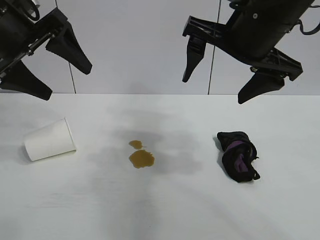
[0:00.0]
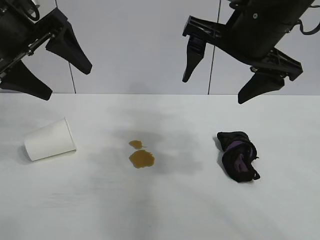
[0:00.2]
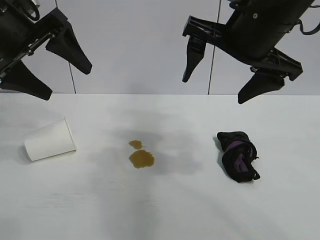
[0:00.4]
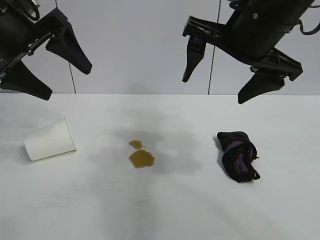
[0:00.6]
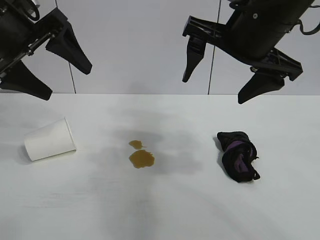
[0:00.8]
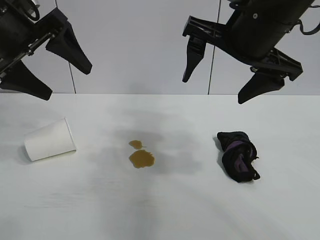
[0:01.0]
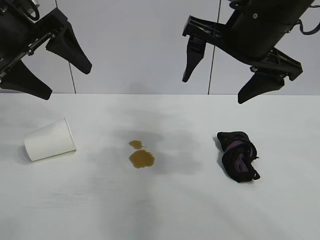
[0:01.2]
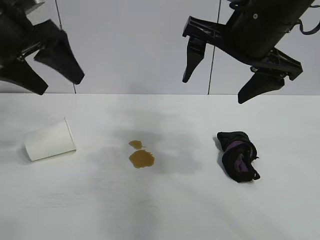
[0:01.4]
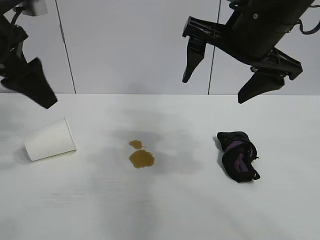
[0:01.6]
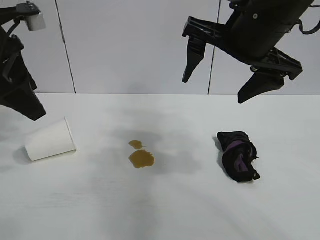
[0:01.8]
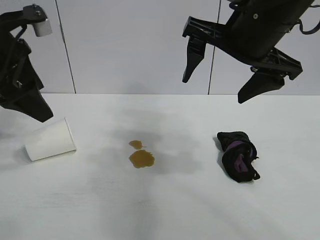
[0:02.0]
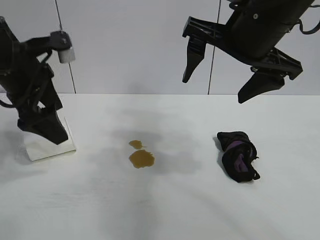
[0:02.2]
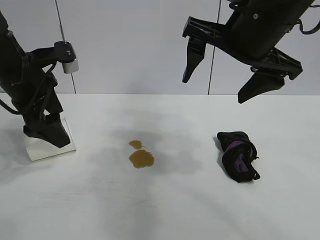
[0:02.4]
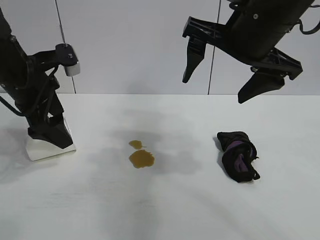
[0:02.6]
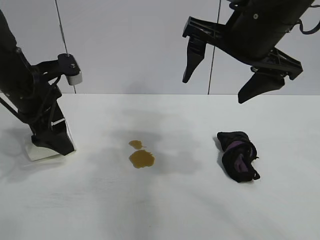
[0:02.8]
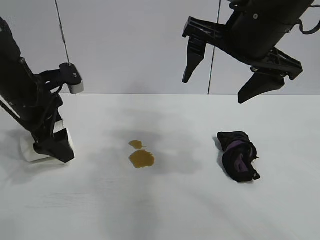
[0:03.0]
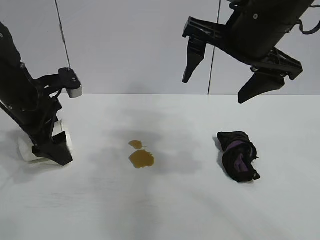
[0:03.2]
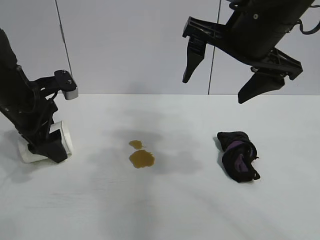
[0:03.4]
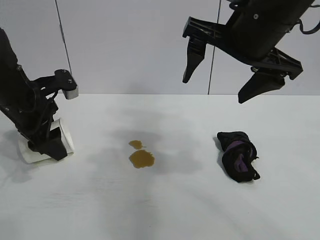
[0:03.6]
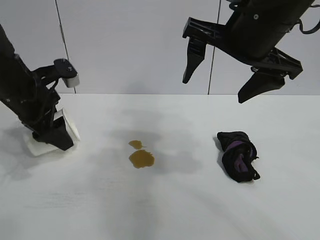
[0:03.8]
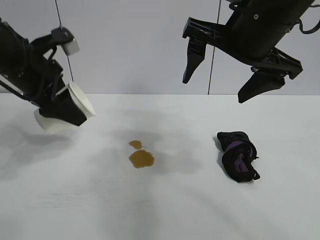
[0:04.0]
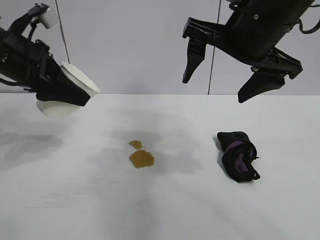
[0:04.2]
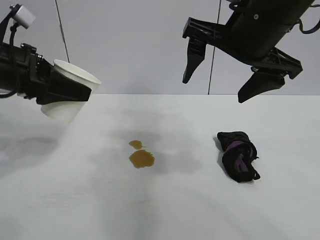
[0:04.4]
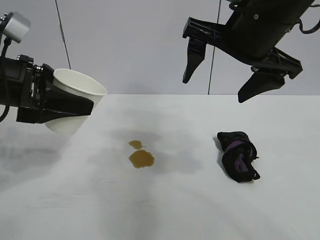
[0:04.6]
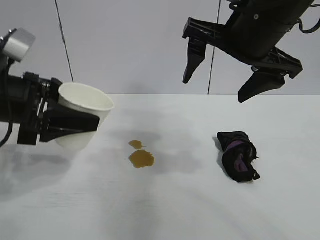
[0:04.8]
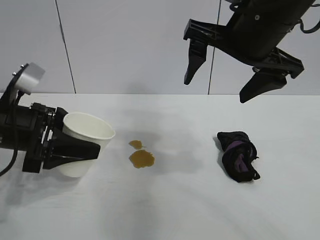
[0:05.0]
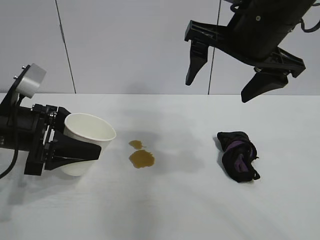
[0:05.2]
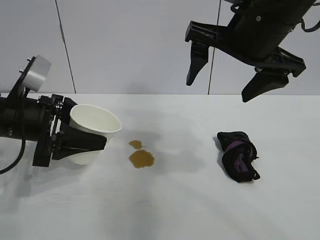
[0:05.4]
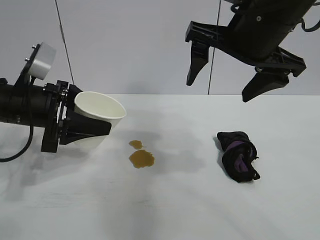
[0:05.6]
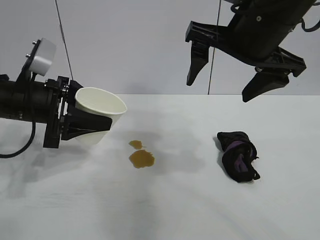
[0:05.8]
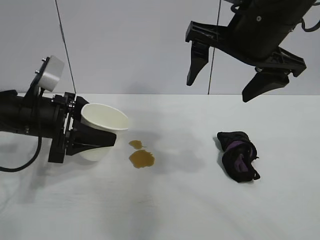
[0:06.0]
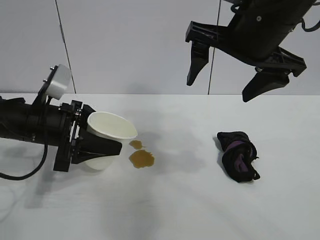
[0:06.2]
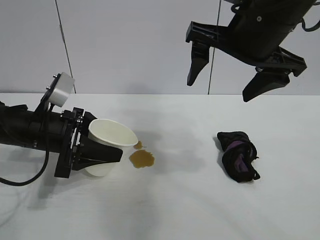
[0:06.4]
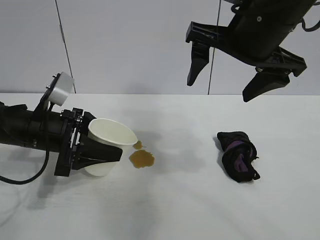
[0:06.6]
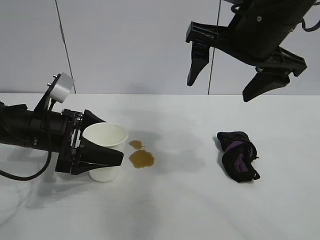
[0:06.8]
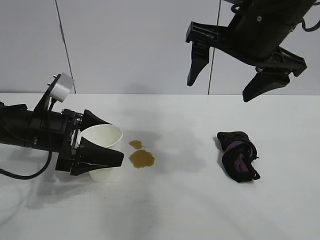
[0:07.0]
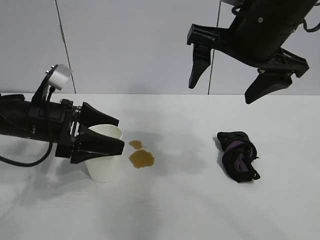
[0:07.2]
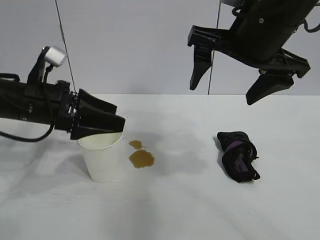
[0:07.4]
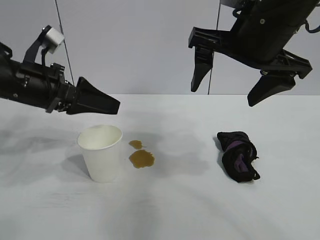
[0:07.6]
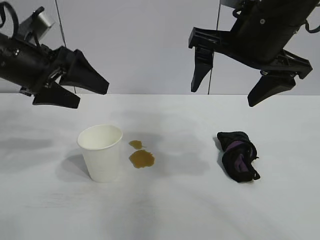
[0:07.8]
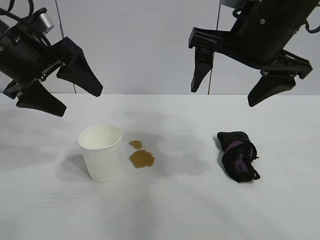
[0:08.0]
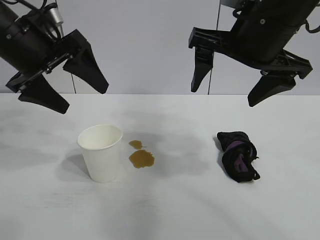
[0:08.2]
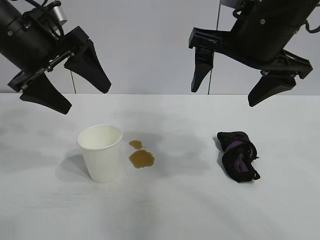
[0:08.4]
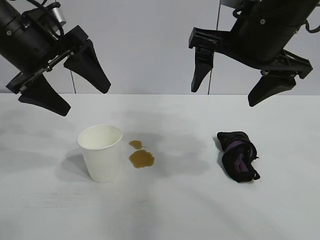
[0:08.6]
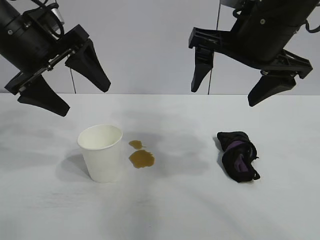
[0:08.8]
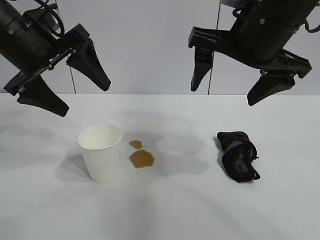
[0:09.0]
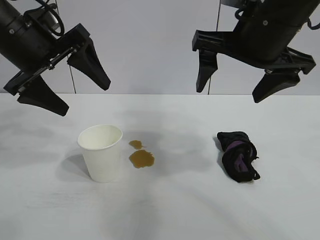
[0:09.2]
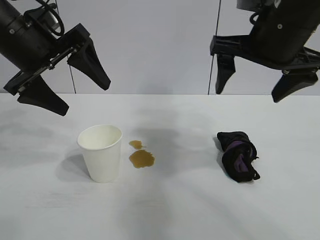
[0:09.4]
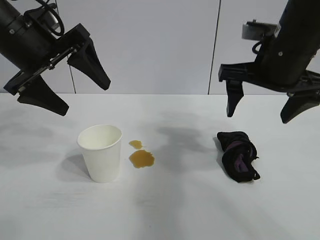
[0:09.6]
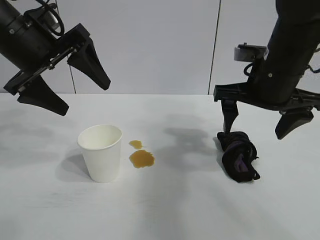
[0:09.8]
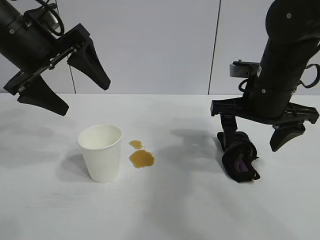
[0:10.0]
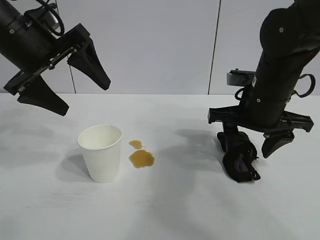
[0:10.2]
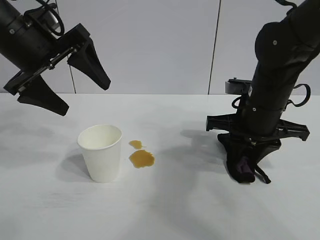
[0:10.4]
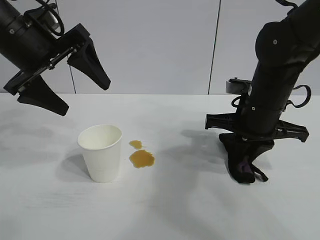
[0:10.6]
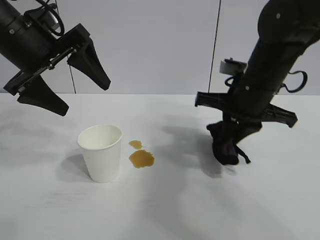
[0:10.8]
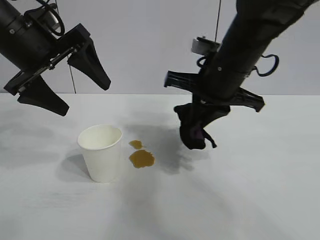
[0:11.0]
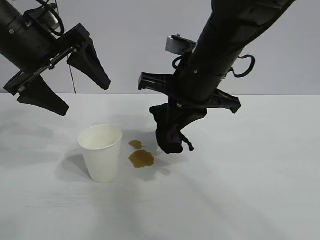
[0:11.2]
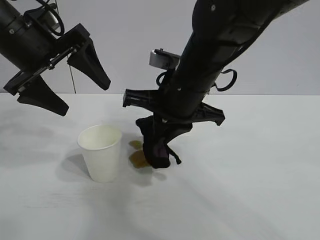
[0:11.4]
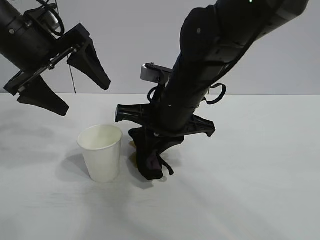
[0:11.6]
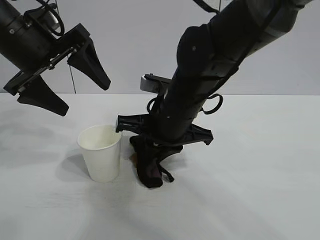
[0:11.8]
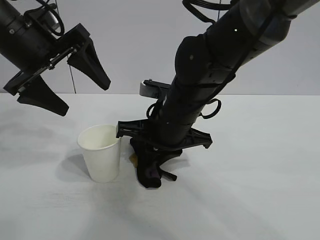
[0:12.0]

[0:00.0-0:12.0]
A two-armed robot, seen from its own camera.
Task of the whole recording: the left gripper pick up the fallen cup and place it upright, the right gripper grasp the black rag and wipe the stain on the table, the right gripper put the black rag back in its original position.
Step, 0:01.2 to 0:03.4: Grasp the paper cup with left gripper.
Step, 0:03.8 to 0:06.8: Stand the paper cup upright with left gripper.
Step, 0:07.0 to 0:10.4: Grasp the rag with right gripper.

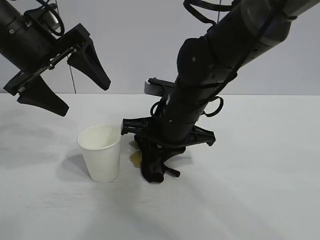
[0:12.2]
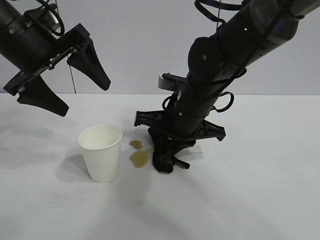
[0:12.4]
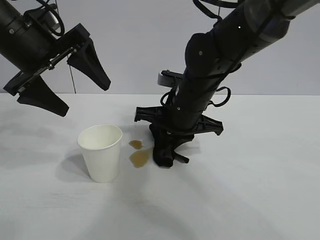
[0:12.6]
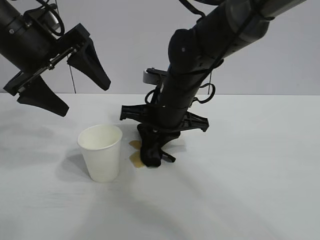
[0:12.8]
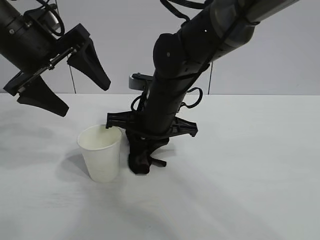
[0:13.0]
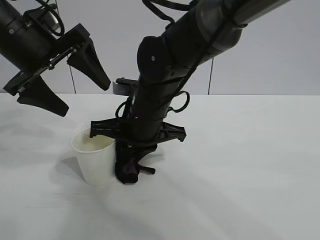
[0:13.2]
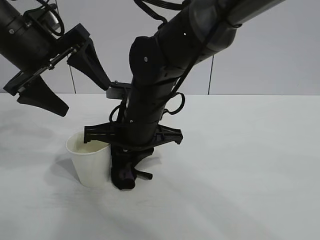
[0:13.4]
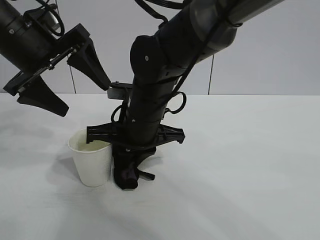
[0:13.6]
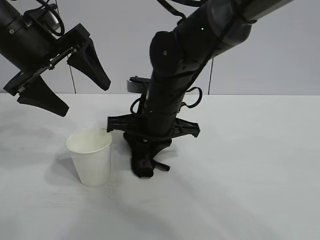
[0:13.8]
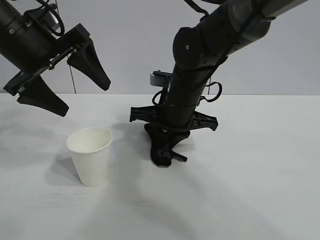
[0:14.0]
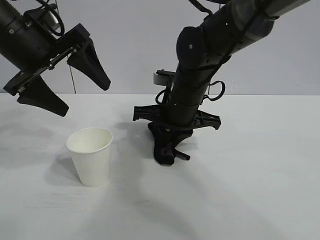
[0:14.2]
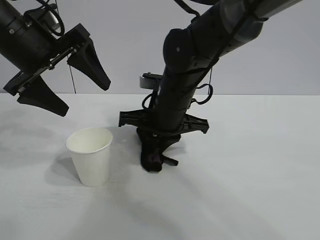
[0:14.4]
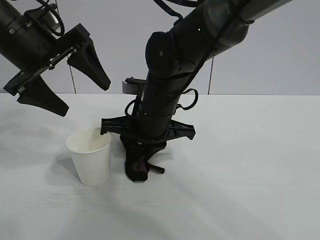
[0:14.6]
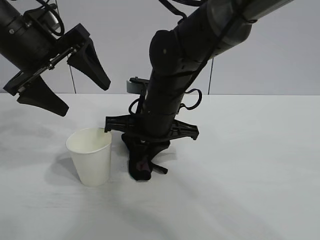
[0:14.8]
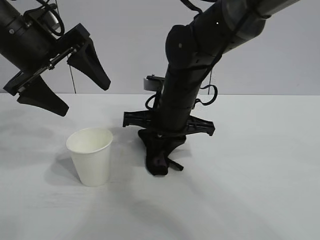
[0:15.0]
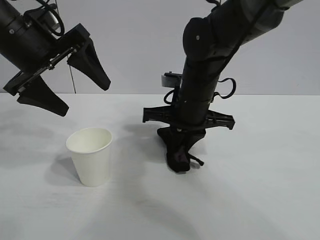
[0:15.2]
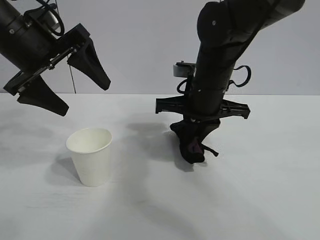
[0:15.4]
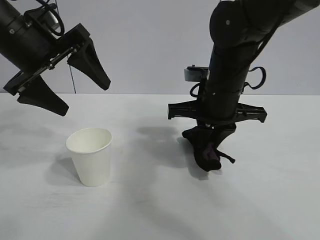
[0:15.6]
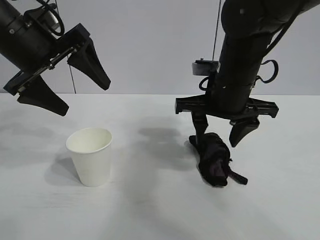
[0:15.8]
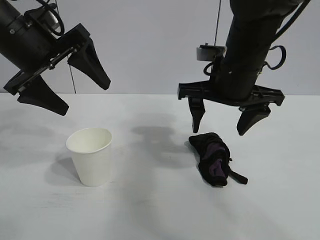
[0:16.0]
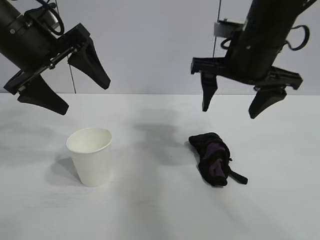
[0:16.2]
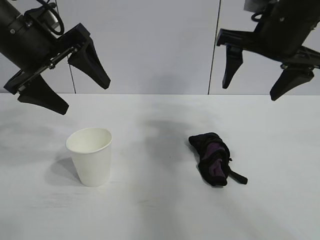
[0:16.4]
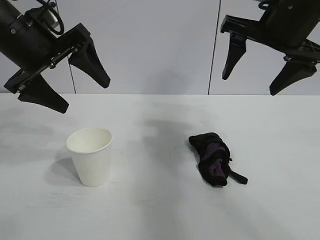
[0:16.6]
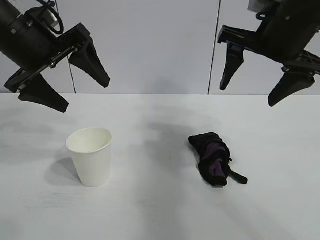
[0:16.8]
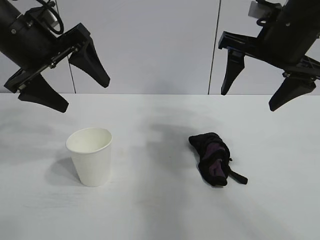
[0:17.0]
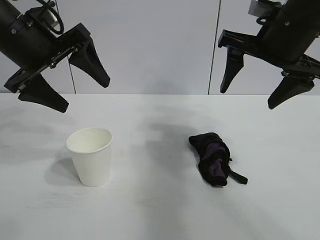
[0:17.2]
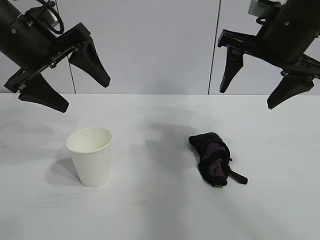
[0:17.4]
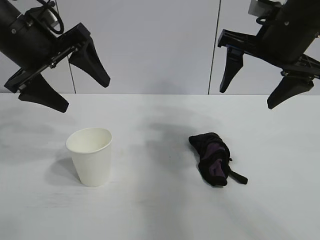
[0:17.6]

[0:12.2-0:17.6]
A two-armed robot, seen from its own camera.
Task of the whole recording: the left gripper pick up the fallen cup and place it upright, the right gripper grasp the black rag and wipe the stain on the table, the right gripper put the black rag back in its original position.
Step, 0:12.2 to 0:15.0: Wipe the stains off the table with the rag with right gripper.
Step, 0:15.2 to 0:15.6: Place the rag on the table with right gripper.
